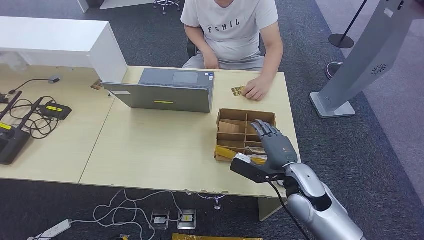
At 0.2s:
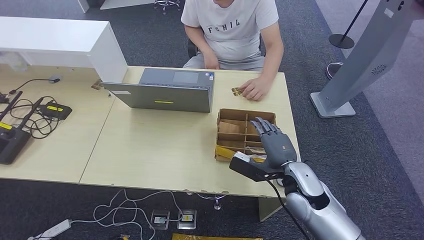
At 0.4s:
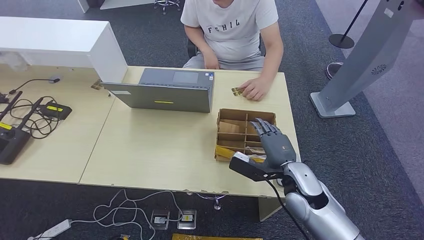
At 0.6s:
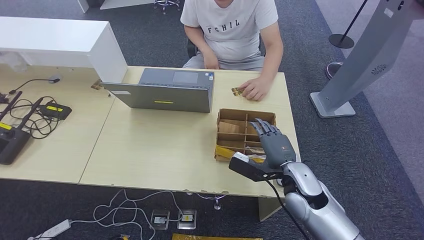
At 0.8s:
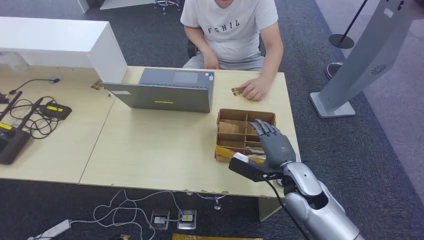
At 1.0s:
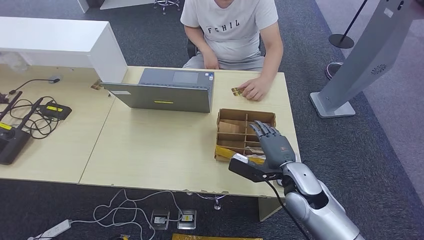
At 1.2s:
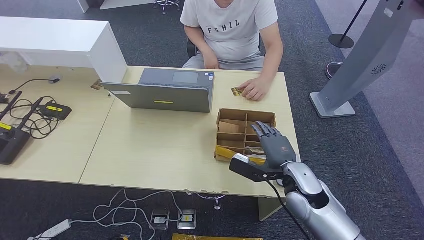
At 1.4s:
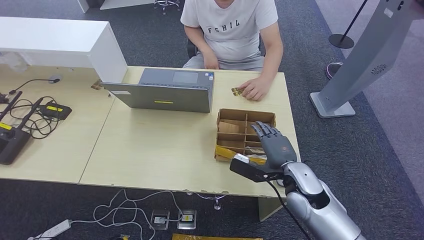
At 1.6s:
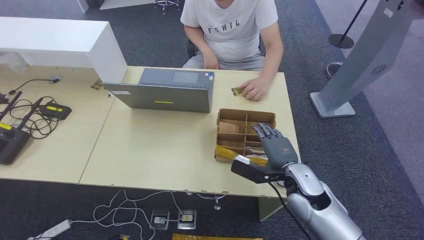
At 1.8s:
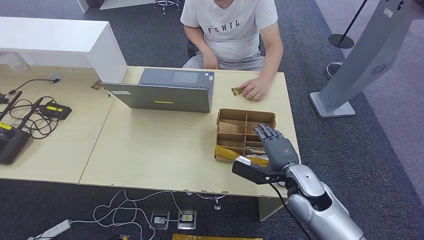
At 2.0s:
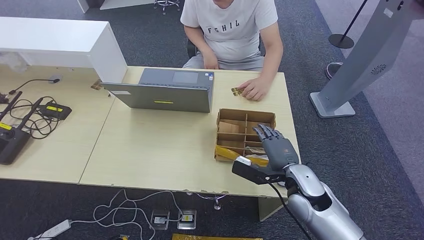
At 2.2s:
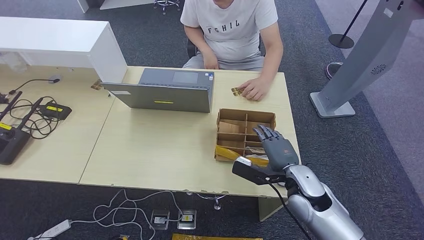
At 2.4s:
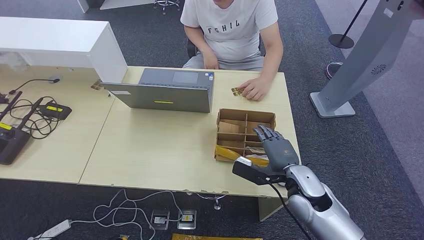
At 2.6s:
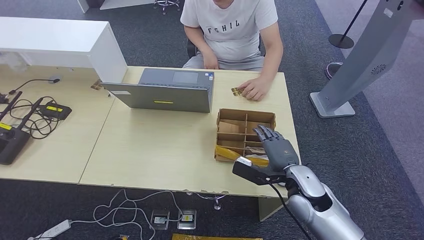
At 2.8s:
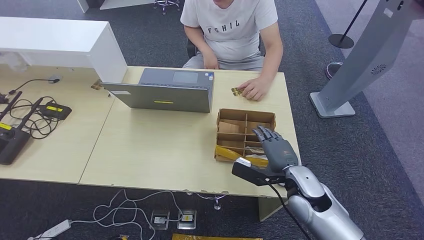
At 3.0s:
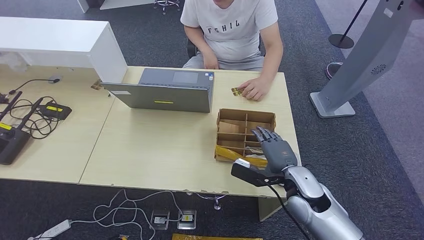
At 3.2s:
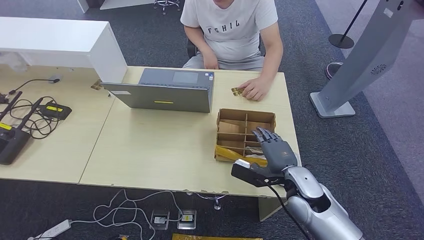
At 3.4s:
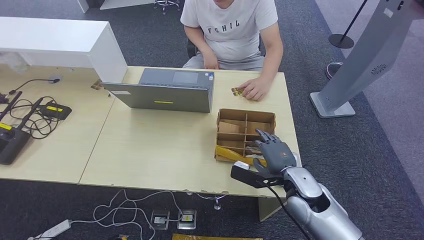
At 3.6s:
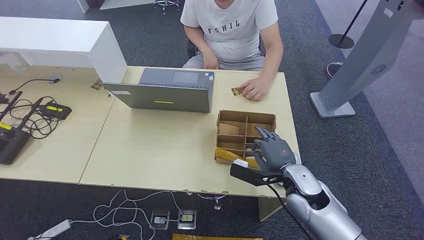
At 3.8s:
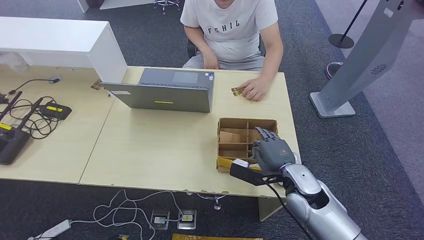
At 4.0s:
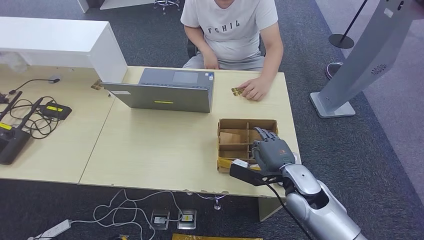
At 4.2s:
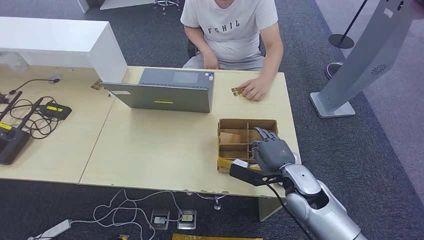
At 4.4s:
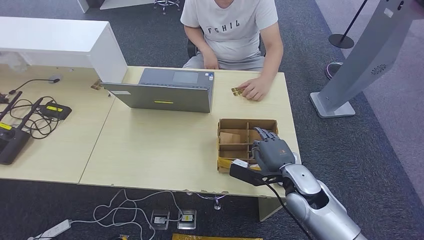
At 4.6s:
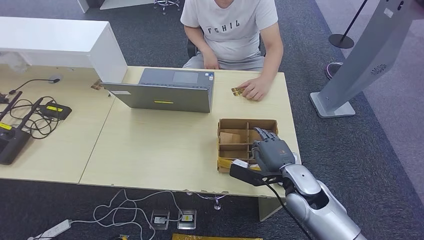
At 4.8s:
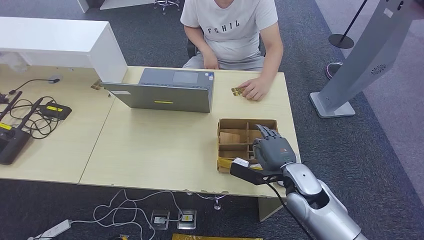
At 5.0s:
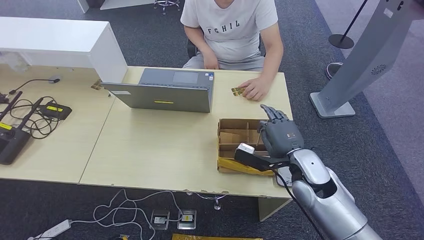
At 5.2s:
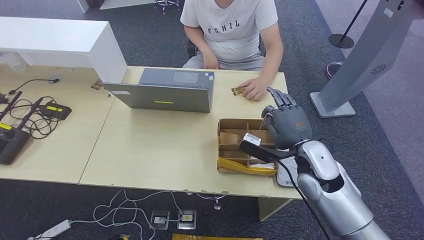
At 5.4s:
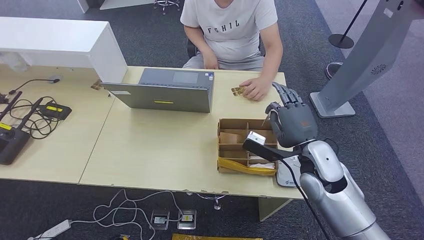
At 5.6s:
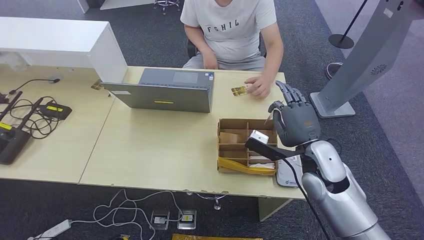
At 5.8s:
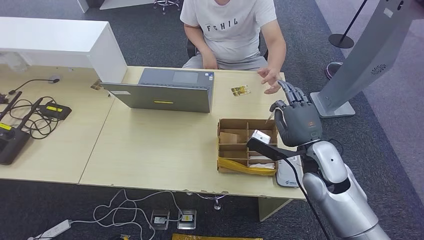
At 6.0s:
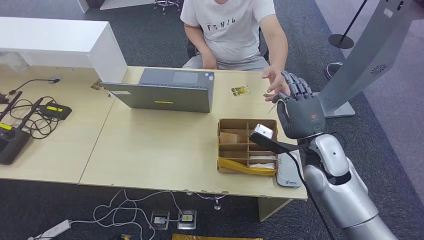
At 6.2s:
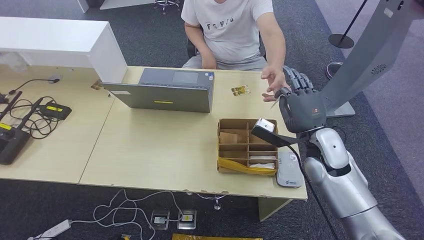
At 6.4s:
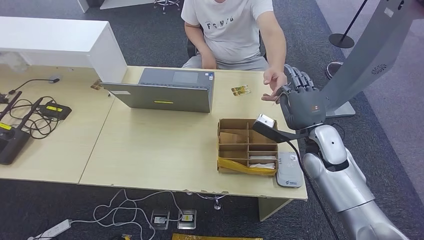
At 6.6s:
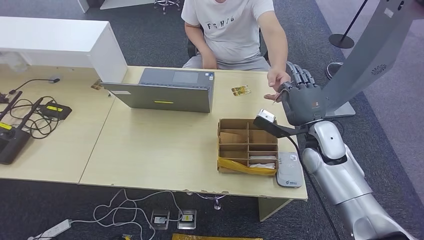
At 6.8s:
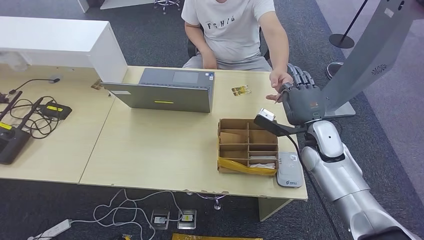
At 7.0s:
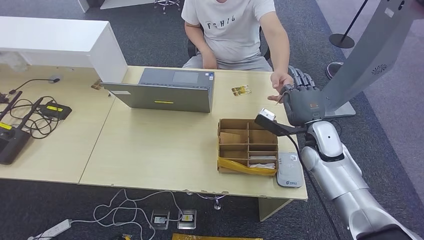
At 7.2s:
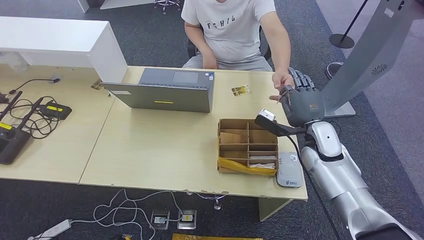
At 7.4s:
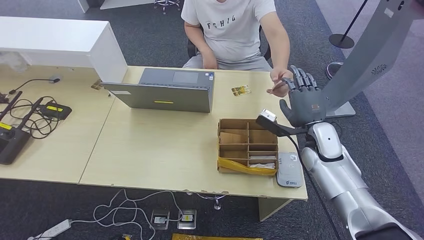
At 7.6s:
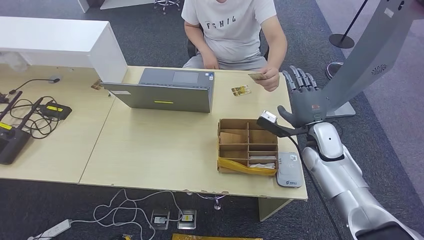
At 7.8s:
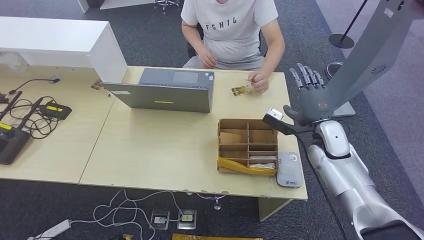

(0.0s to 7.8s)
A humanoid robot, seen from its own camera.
Step, 0.0s - 5.4s: Pick up the room key from the key card box.
Step, 5.6s - 7.8s: Hand the room key to the person.
1.6s - 4.6s: Both hands stay about where they are.
4.6s - 6.2s: The right hand is displaced upward and forward by about 10 cm.
6.2s - 7.8s: The right hand ends up roughly 5 cm from where it was.

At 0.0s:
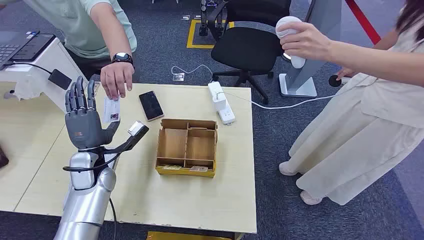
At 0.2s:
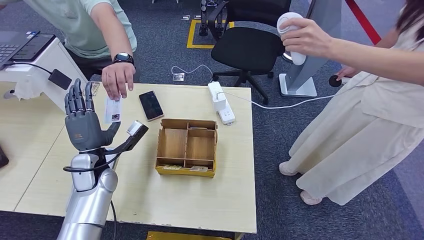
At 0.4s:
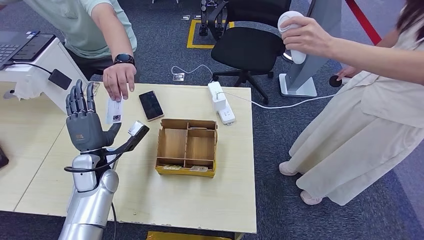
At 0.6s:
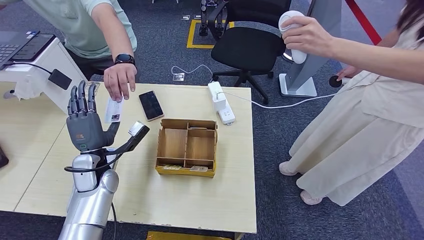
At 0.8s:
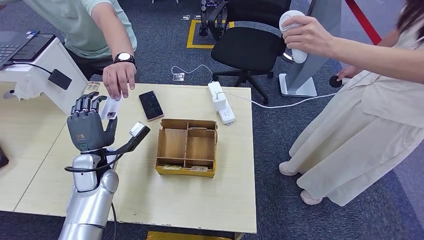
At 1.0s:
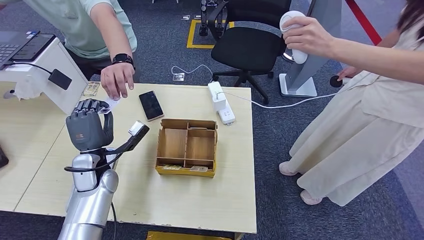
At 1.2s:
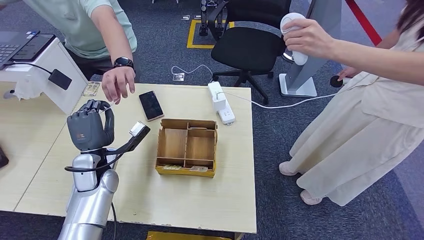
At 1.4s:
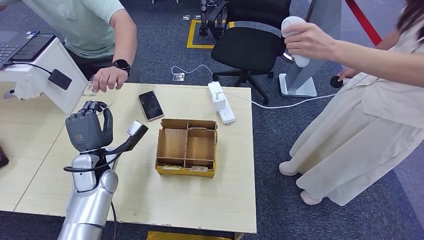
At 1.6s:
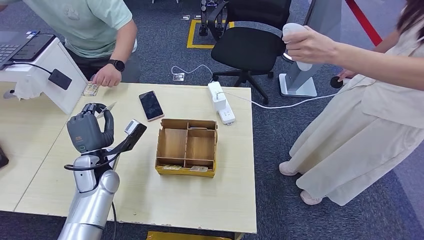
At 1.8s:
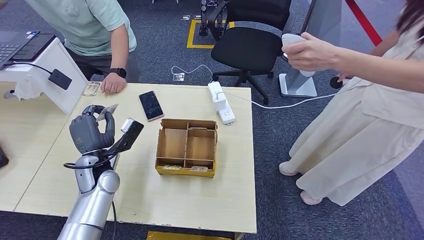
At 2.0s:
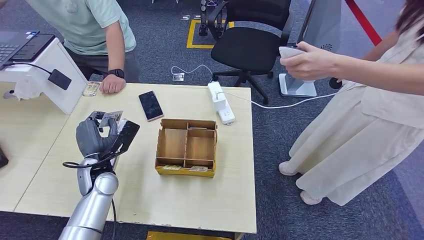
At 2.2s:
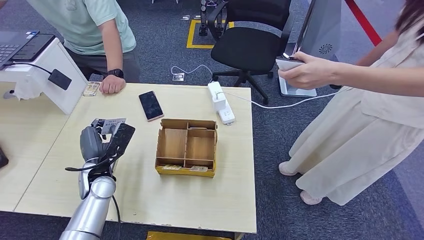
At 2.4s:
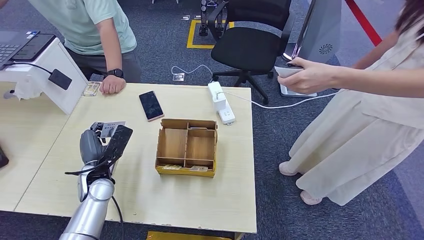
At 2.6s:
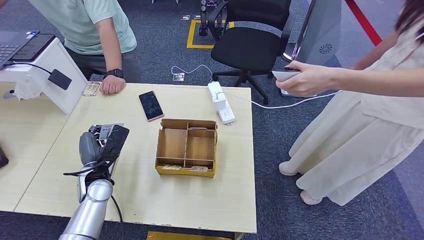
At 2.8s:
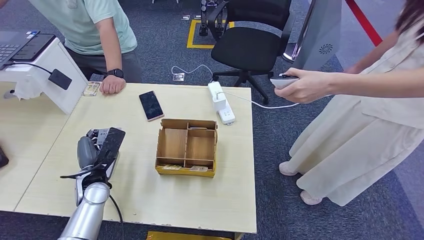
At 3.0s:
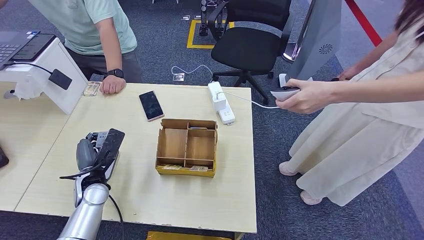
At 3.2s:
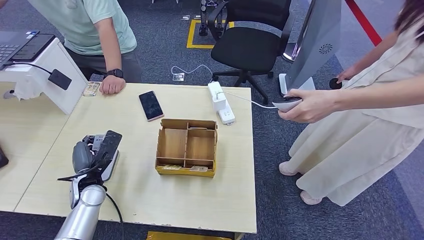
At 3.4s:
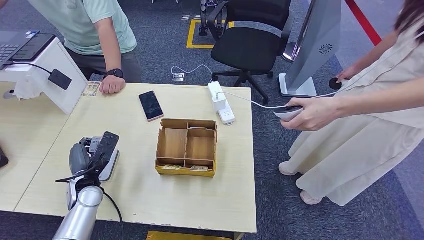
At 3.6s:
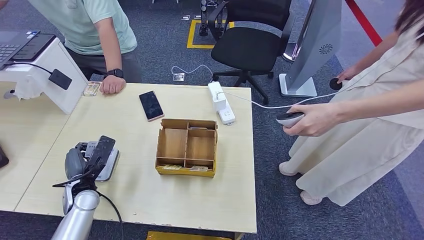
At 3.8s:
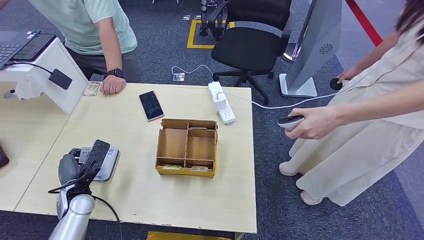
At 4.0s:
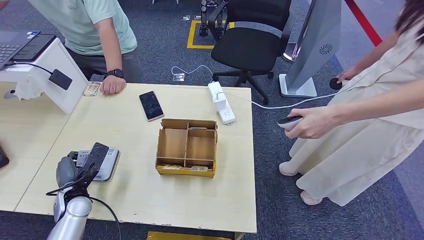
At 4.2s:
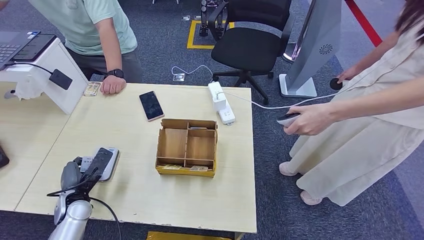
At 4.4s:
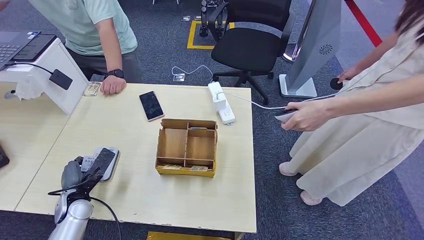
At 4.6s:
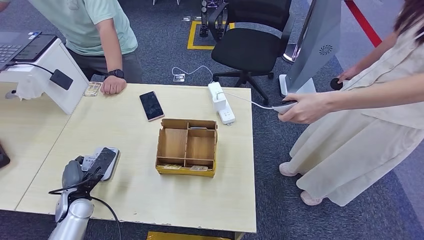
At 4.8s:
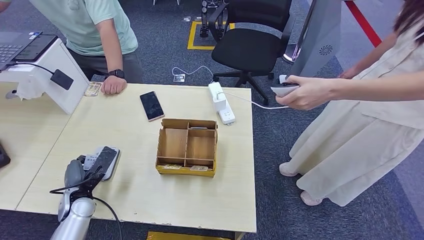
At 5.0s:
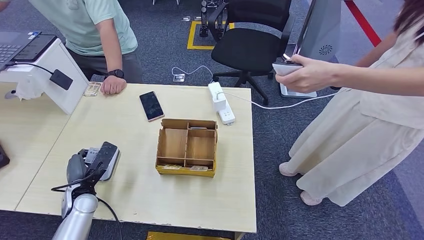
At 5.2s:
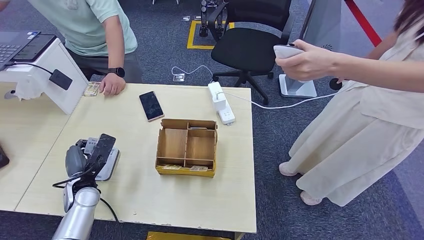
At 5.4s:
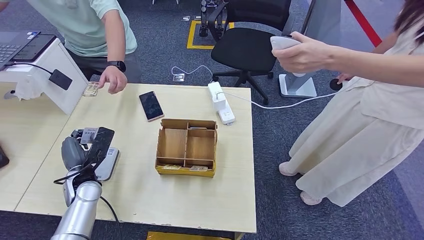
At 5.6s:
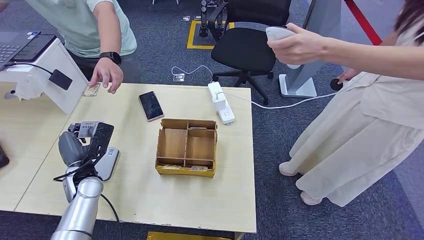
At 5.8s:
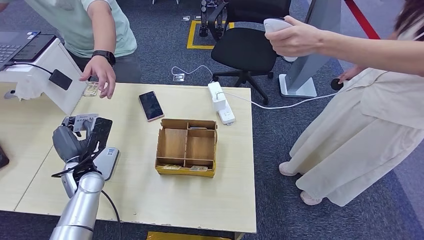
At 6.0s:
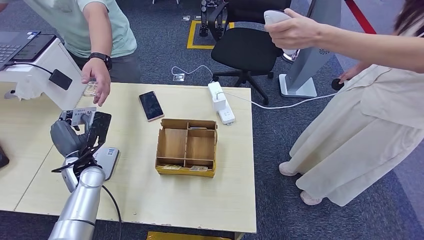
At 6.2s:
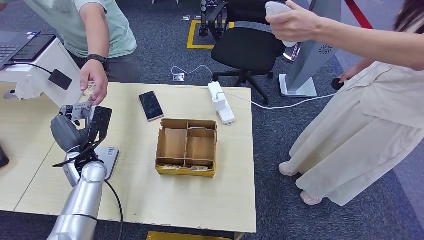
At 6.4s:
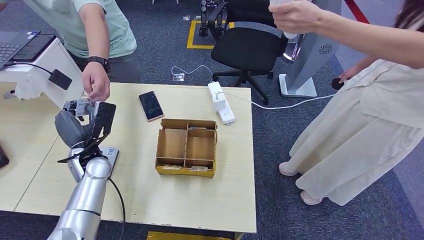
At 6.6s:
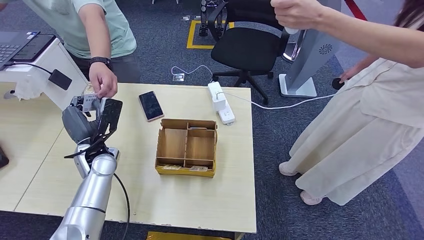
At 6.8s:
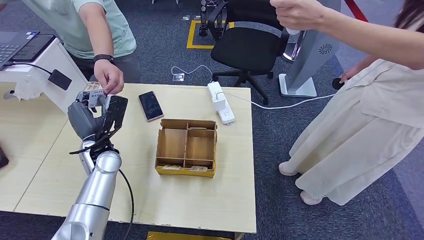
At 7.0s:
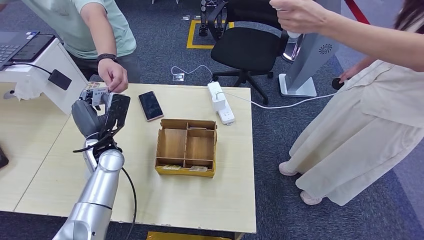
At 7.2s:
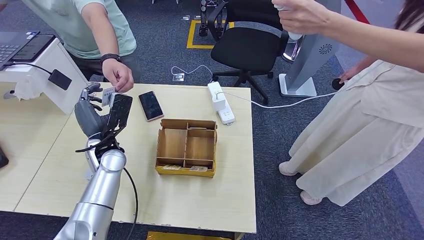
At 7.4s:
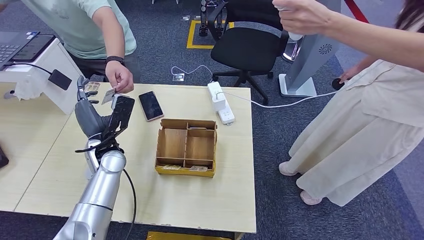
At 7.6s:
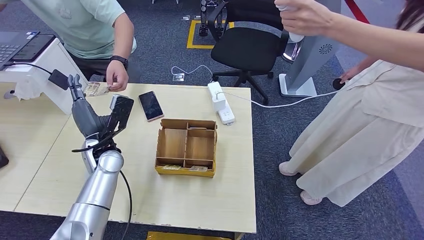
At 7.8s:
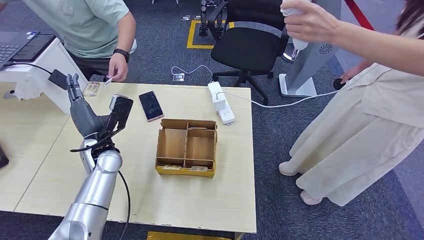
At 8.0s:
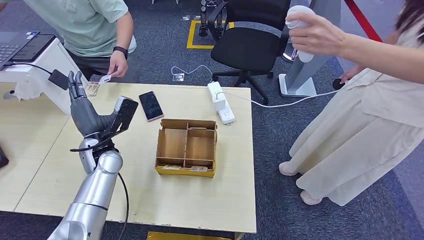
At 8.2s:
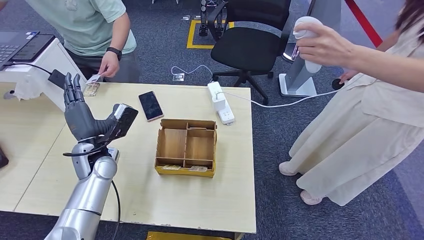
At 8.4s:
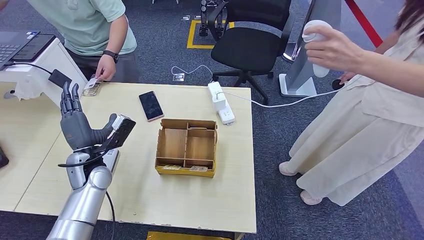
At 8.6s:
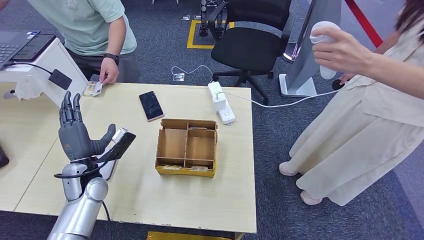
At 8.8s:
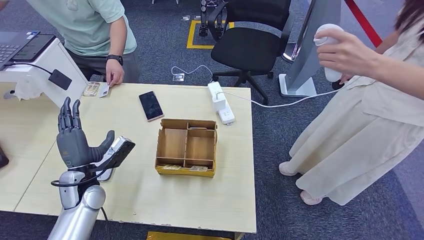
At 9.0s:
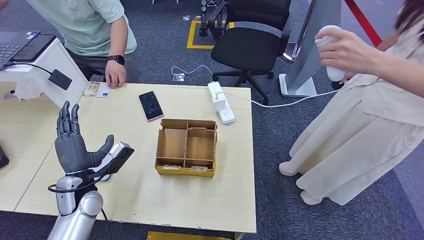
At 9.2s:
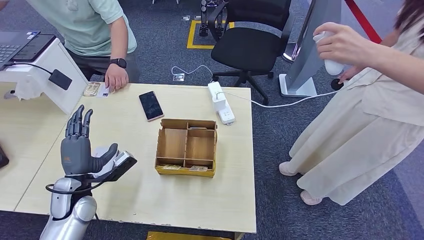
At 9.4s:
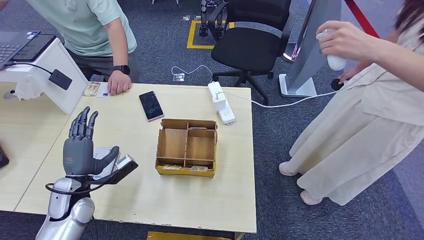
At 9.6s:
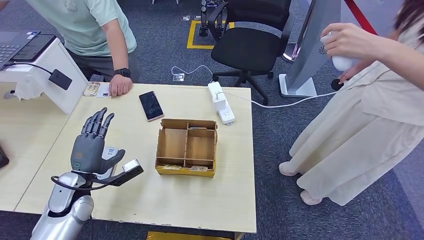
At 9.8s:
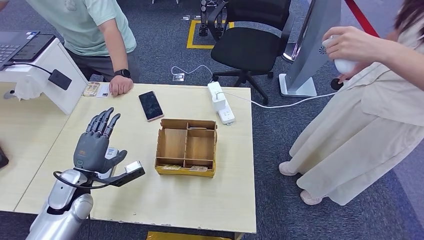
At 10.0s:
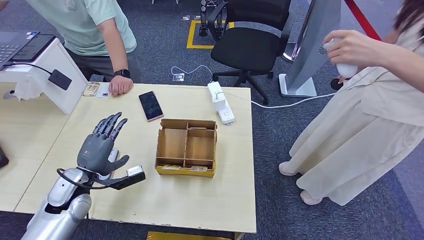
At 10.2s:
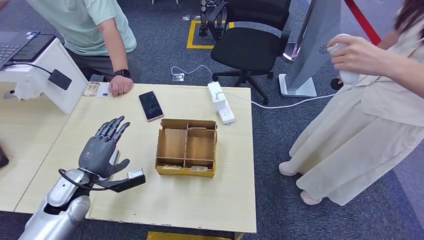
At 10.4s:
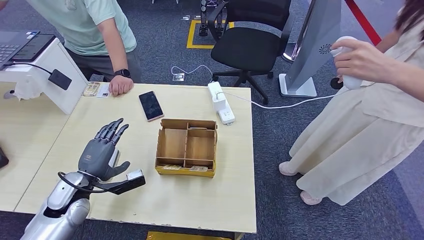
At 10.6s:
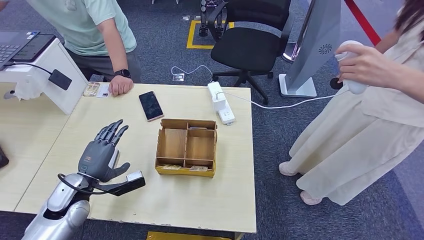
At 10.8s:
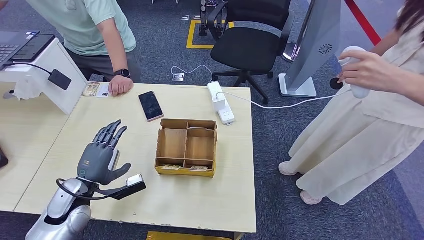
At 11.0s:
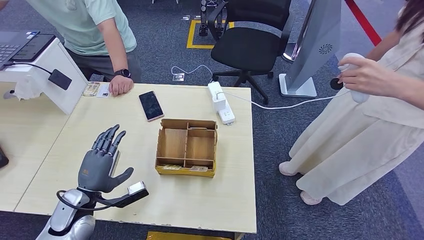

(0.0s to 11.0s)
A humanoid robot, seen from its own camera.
Step, 0.0s - 1.6s: Take the ID card from the person's hand.
Step, 1.8s - 4.8s: Place the ID card on the card reader.
Step, 5.2s - 7.6s: Hand the ID card to the person.
1.6s - 3.2s: The left hand moves downward, approximately 5 cm.
3.2s - 4.8s: The left hand moves approximately 5 cm.
6.2s - 7.8s: The left hand shifts by about 5 cm.
7.8s - 9.4s: The left hand goes some 15 cm backward, to the left and downward.
